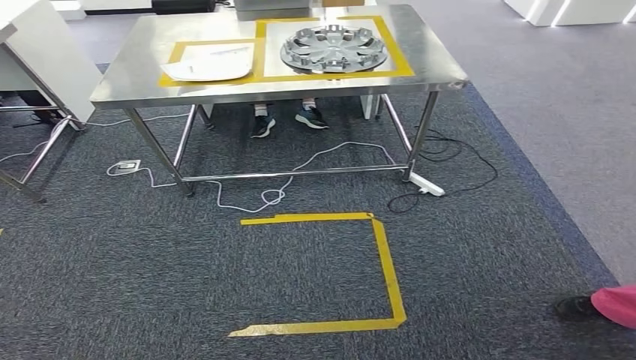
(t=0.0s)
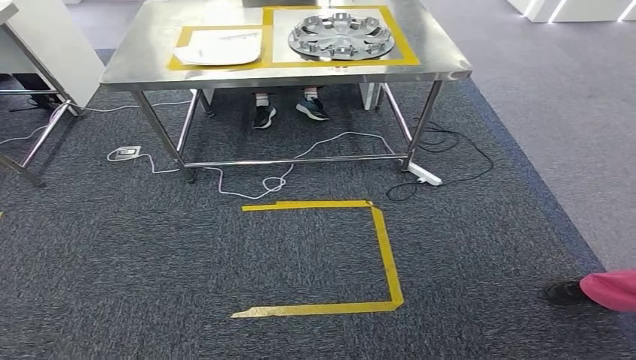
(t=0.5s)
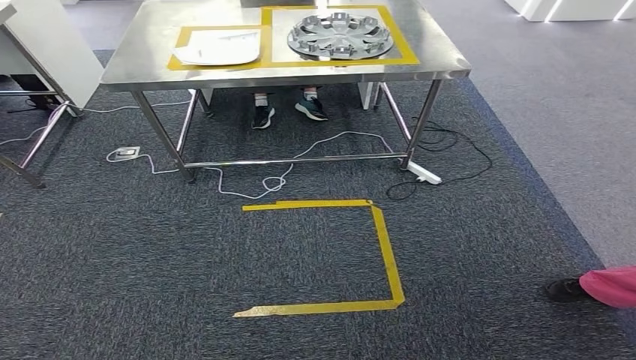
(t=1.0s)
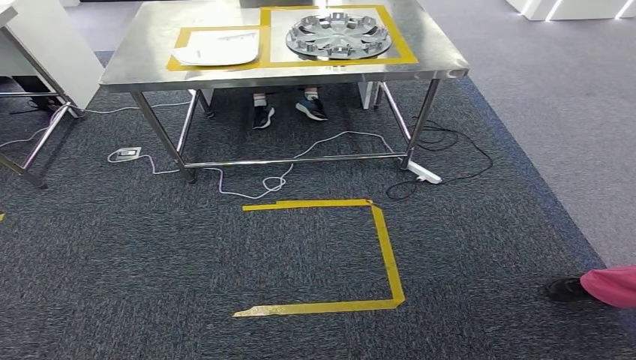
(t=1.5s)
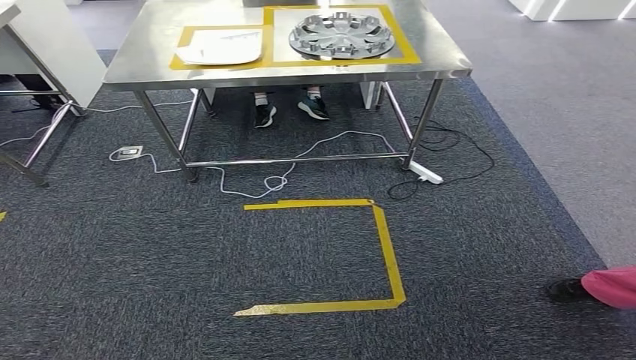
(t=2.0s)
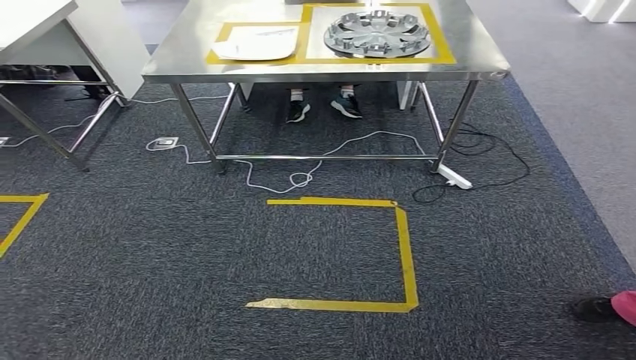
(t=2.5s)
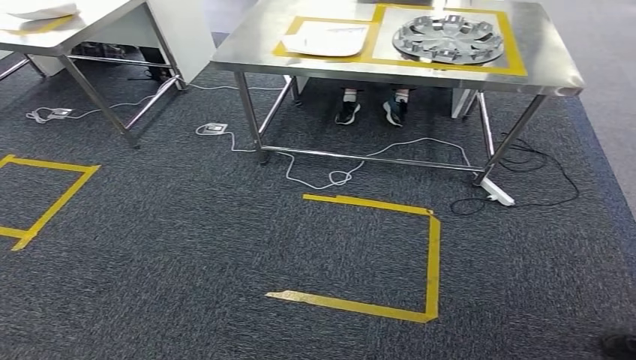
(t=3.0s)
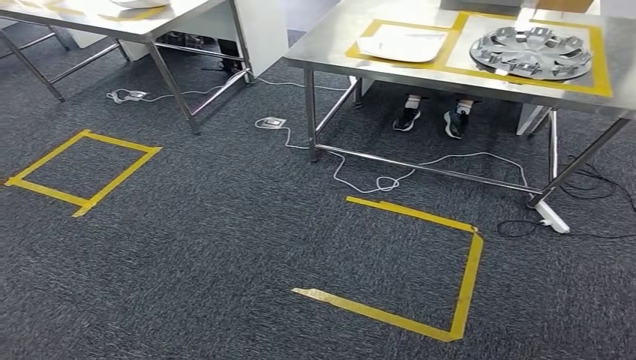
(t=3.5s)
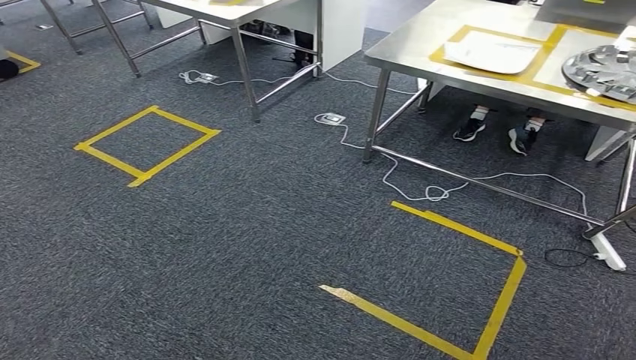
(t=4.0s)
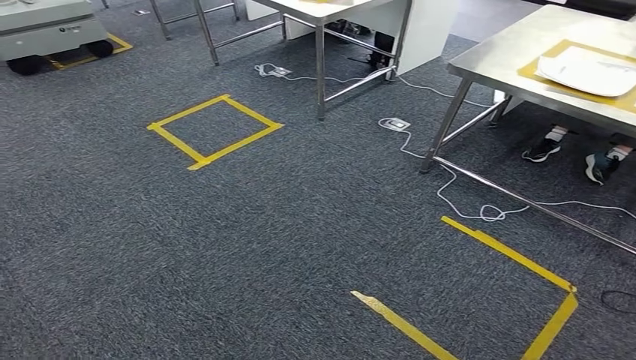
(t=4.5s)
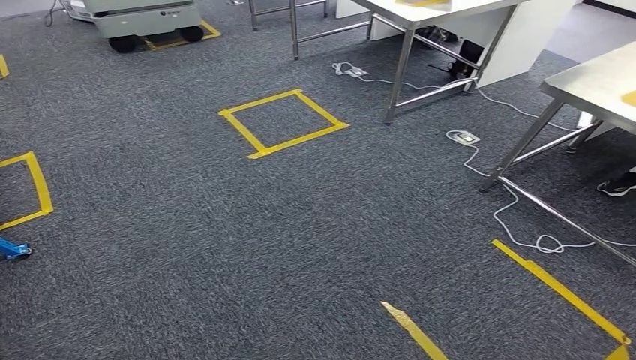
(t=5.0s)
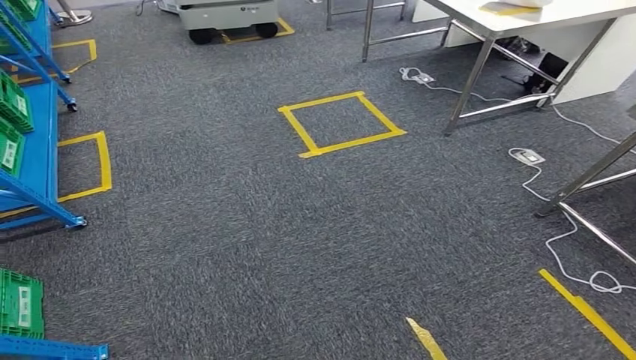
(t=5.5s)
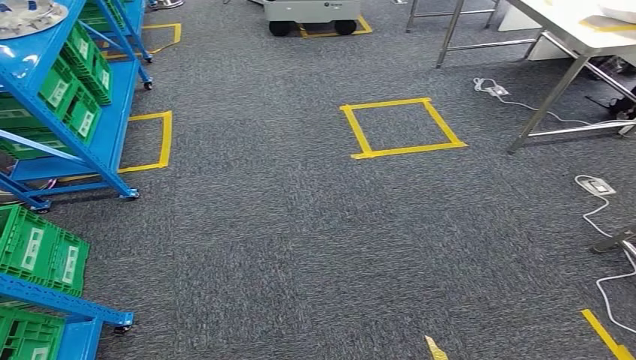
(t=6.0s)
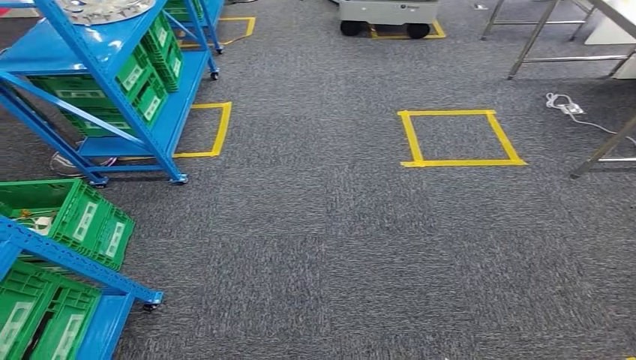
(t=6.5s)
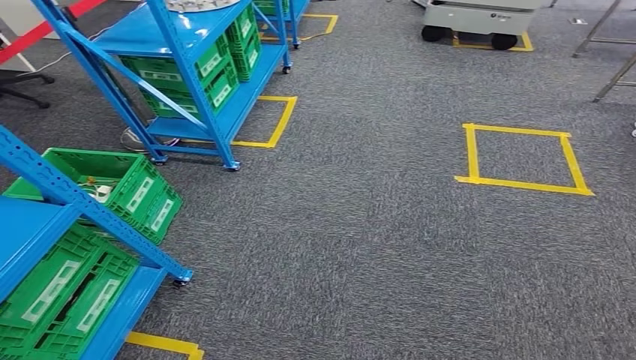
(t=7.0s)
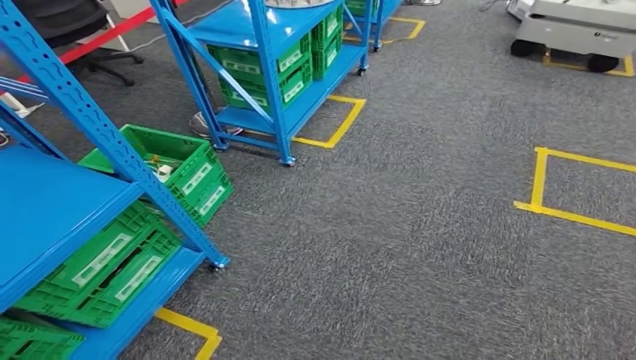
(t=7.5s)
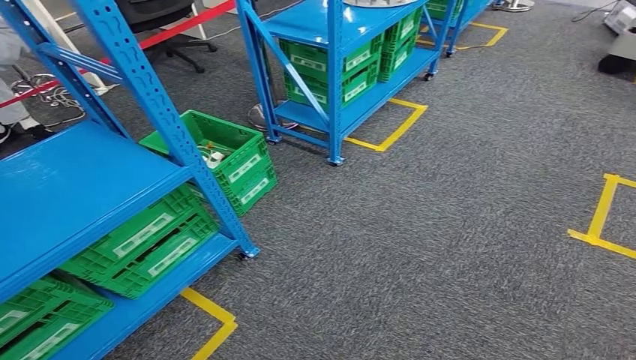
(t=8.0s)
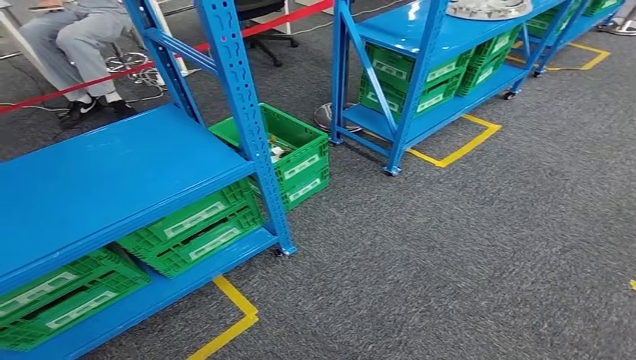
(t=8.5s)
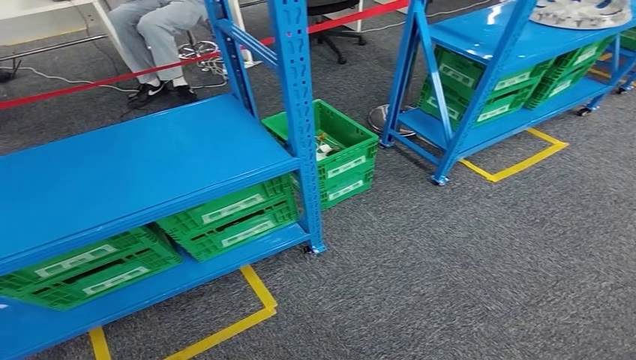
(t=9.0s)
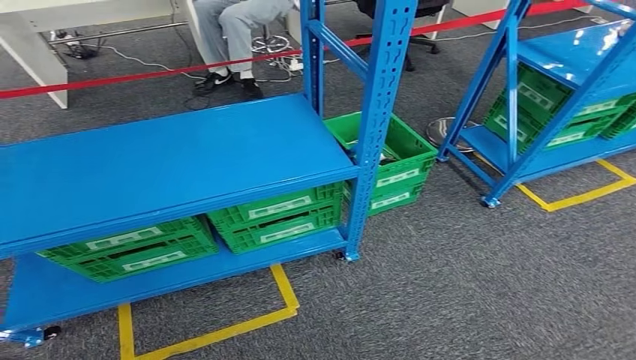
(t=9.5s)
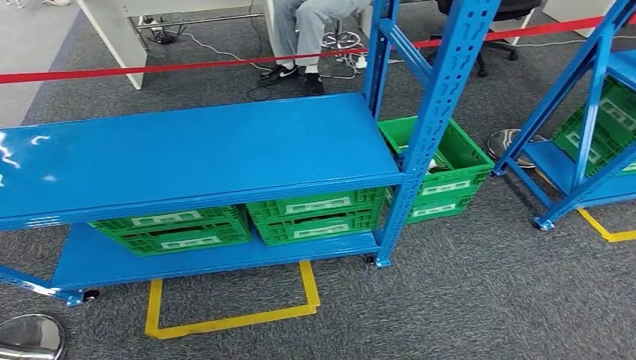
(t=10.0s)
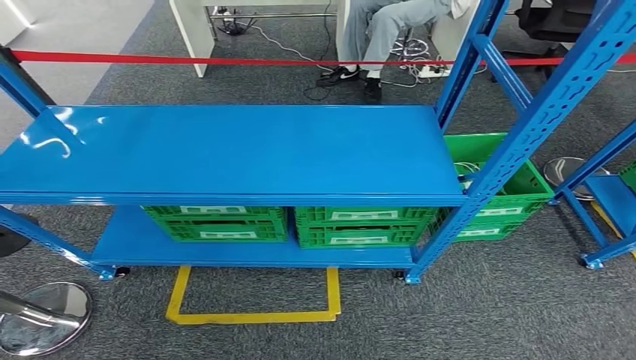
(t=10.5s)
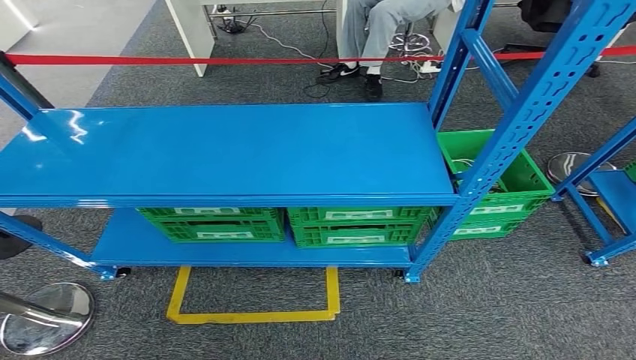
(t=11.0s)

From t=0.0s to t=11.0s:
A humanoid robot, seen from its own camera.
Step, from t=0.0s to t=11.0s: Return to the initial position at the workbench.
